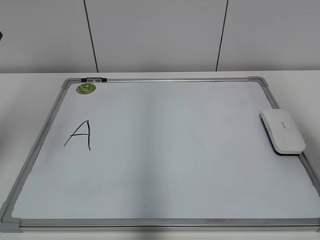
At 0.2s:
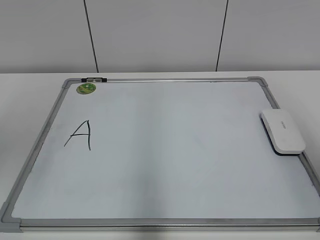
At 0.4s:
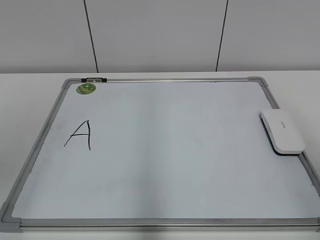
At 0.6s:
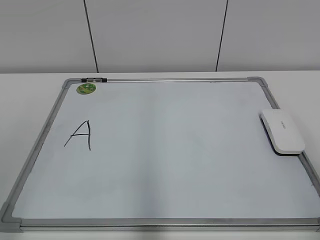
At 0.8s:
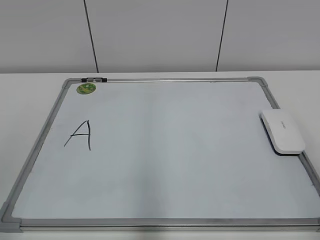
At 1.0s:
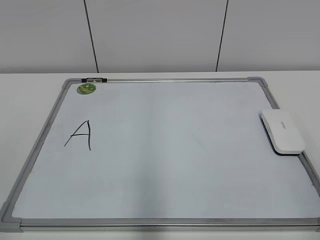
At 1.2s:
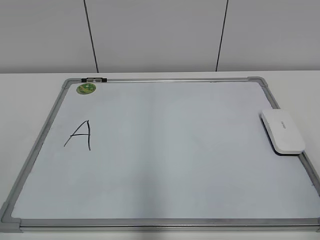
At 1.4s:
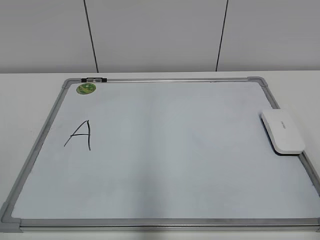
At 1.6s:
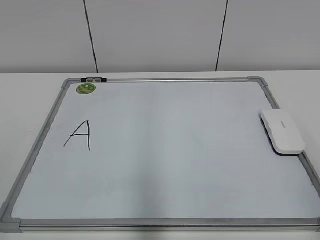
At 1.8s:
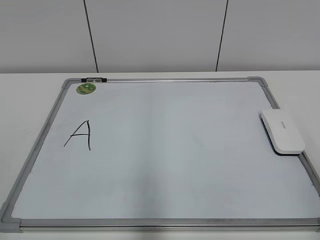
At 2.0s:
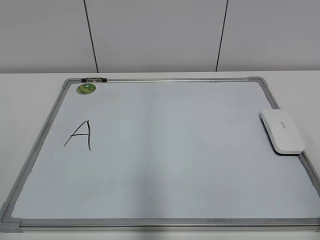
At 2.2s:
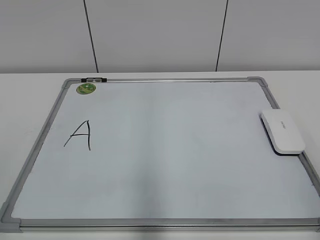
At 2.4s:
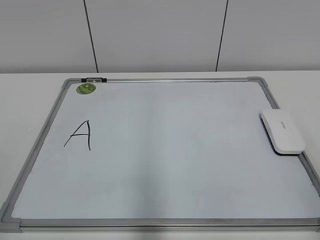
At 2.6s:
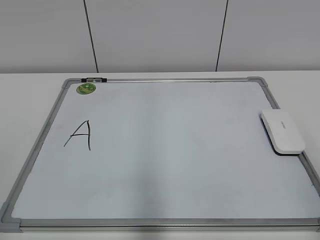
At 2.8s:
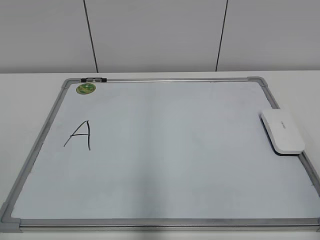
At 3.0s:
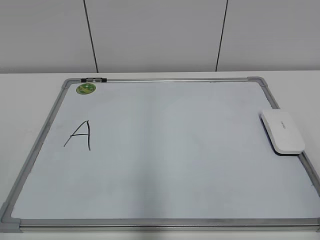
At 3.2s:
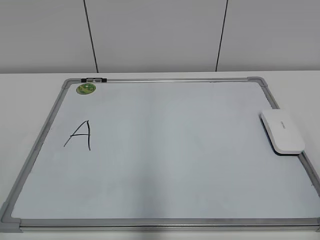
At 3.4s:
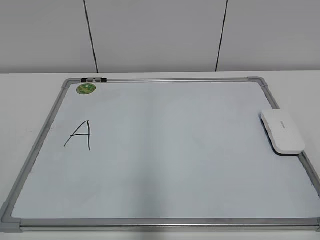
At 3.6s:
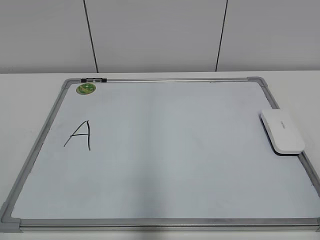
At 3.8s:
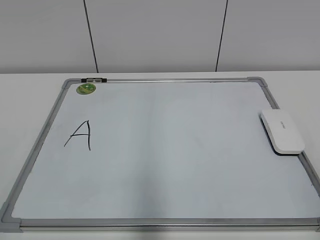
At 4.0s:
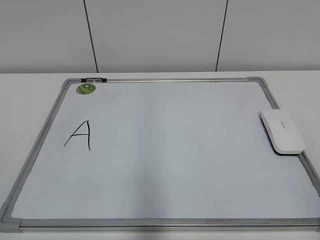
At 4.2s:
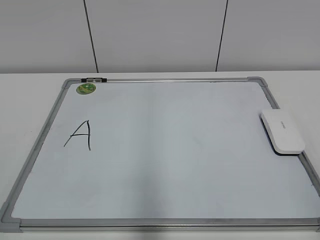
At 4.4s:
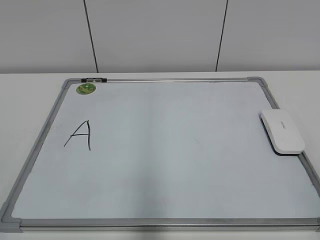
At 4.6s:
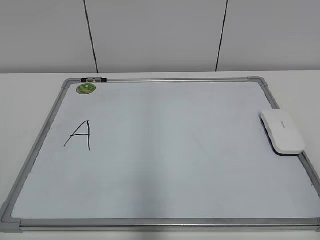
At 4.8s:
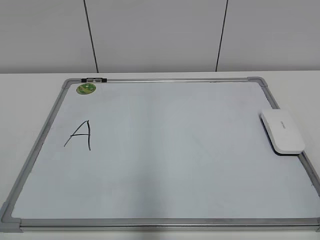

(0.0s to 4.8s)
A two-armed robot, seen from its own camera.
Task of the whole recording: pick up the eraser on the blackboard and erase the letter "a".
0.0s - 1.6s: Both grippers move backward and downward, roughly 25 cm.

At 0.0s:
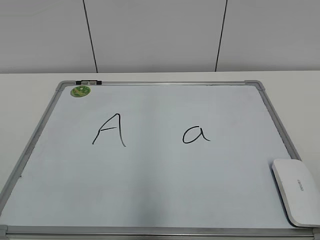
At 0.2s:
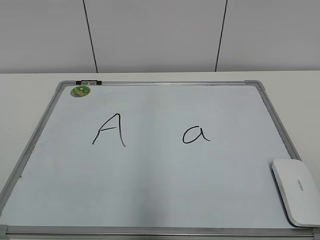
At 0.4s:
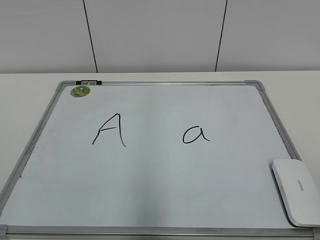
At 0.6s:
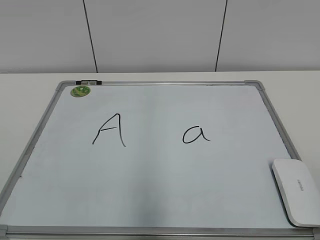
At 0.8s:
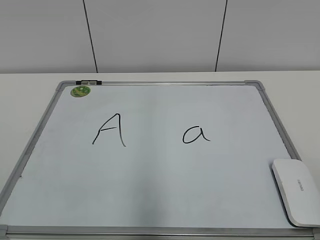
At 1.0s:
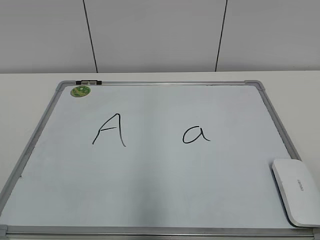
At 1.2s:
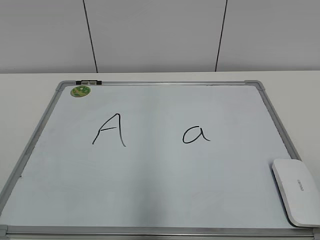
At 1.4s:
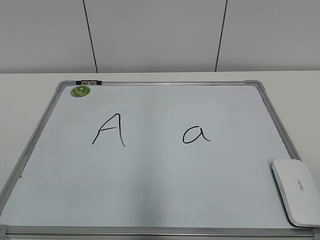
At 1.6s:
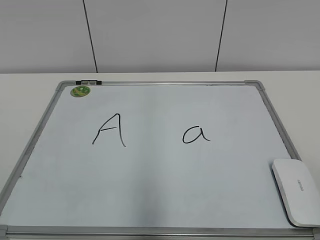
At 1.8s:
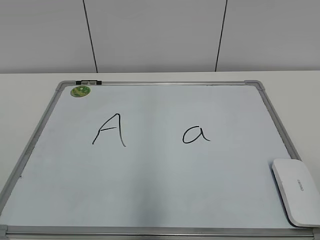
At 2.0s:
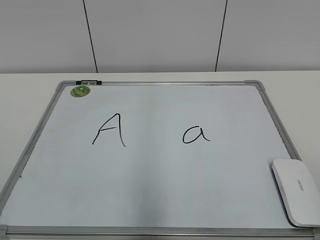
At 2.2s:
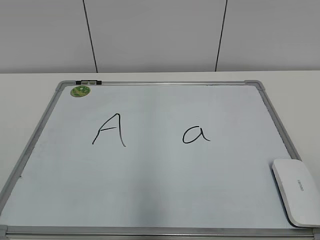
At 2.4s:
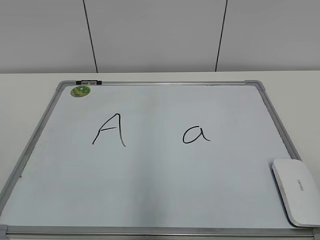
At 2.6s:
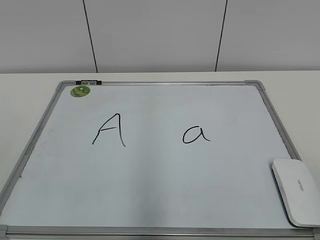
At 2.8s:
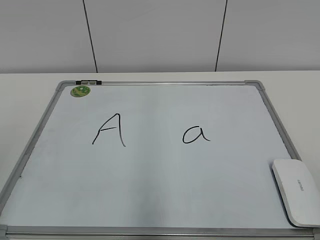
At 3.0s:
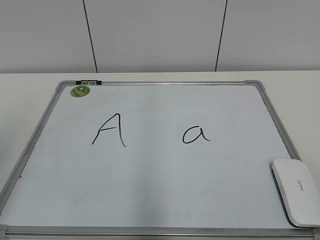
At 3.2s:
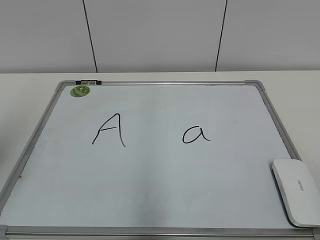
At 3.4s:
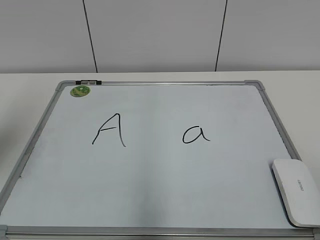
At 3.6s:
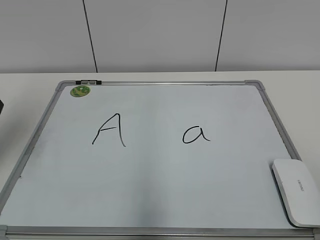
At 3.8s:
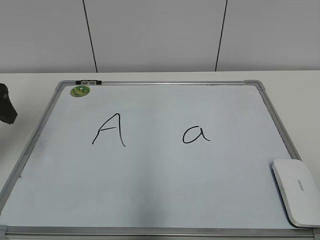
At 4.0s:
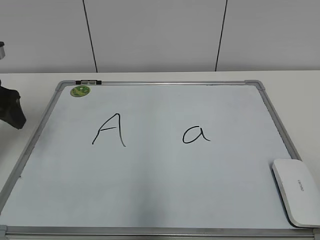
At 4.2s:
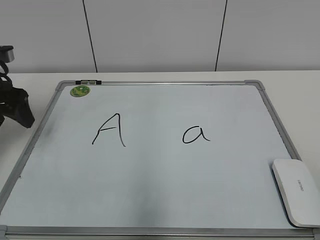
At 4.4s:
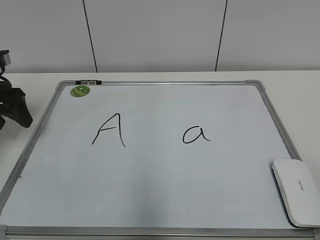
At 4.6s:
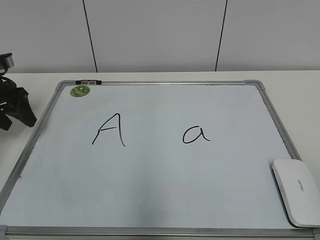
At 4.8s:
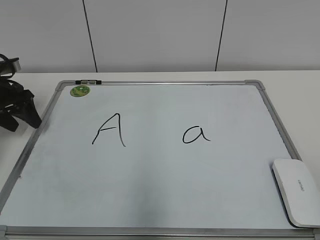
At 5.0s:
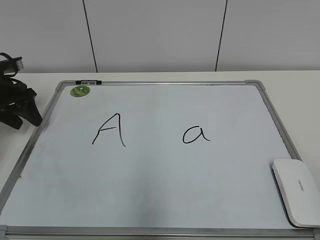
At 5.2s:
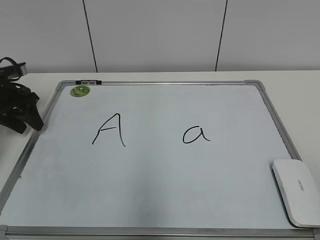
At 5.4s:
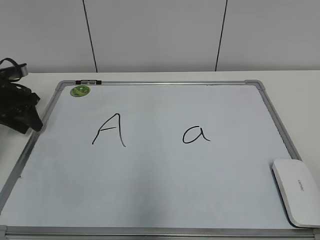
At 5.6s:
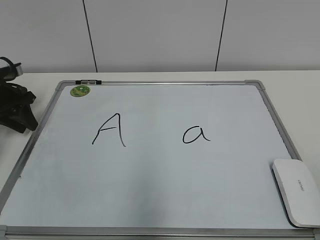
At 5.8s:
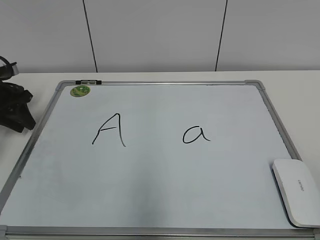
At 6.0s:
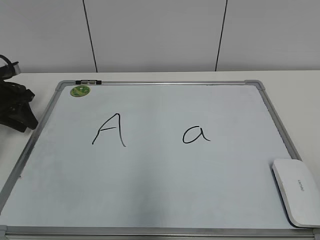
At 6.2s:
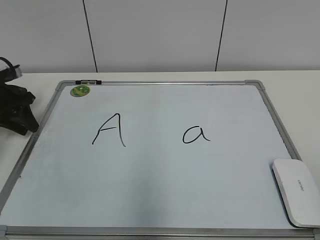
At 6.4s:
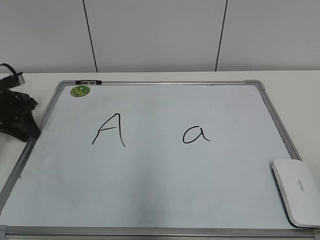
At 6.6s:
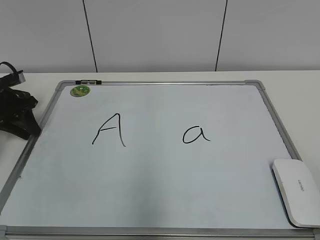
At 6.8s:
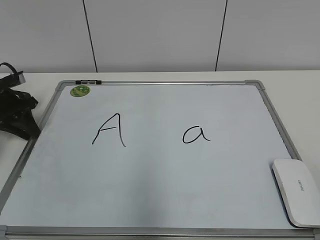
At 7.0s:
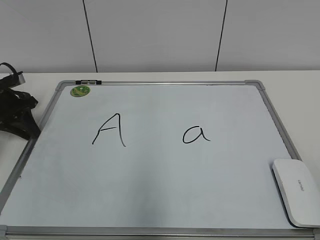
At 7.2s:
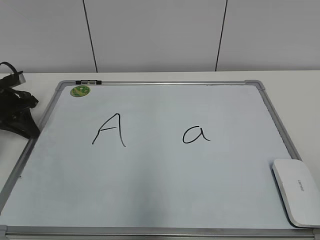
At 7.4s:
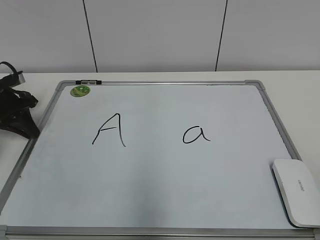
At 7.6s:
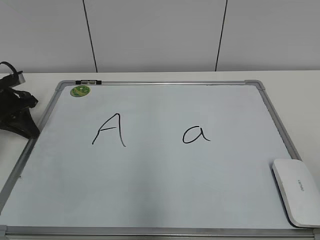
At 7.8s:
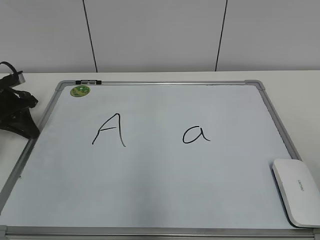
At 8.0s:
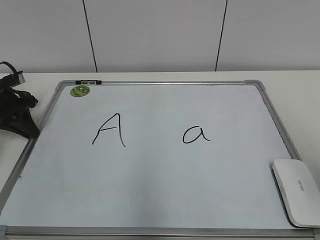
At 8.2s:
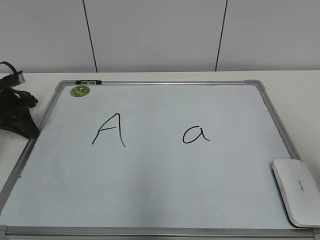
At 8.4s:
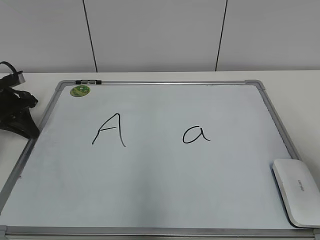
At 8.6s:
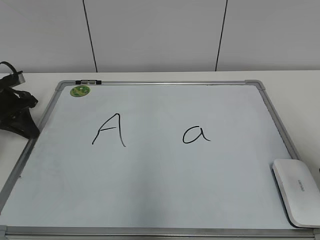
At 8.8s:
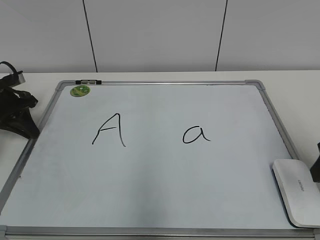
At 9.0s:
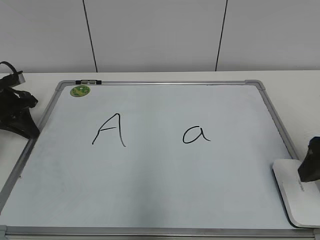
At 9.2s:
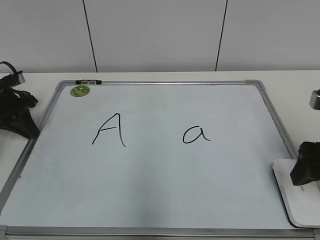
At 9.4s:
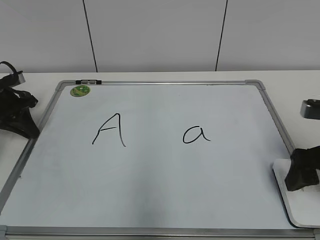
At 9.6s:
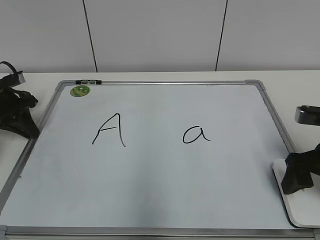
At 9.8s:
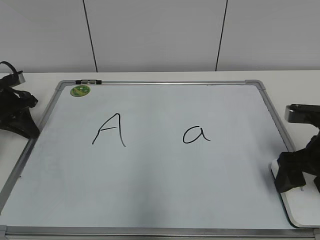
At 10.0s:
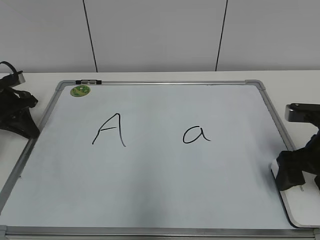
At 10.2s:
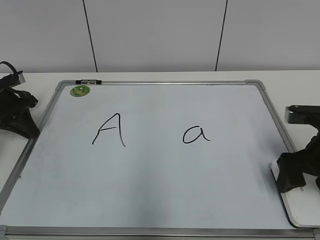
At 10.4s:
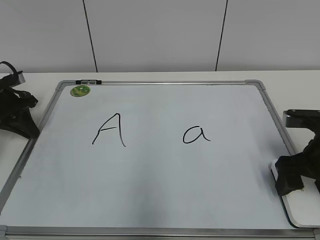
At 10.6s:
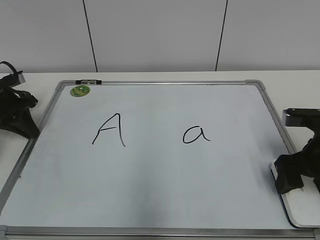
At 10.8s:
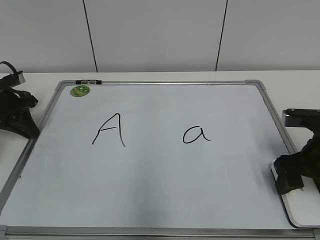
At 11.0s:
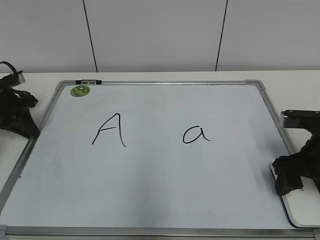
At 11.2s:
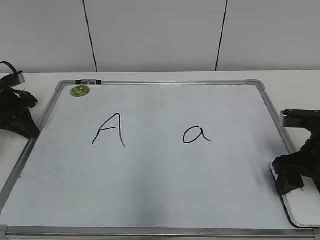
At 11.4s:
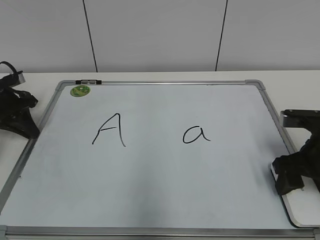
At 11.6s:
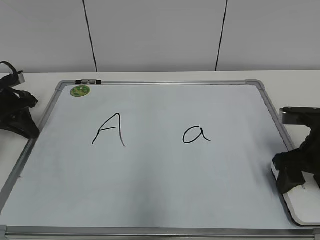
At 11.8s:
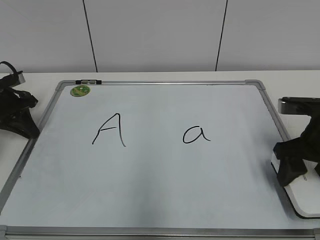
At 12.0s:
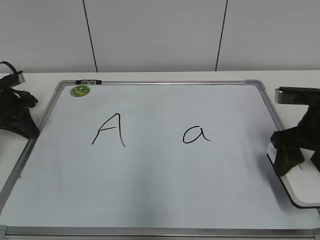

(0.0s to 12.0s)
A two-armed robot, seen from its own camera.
Task of the whole recording: pick up the eraser on the blackboard and erase the letter "a".
Step, 0.0s - 7.2s: Secure the drawing board with your left hand.
Step, 7.4s - 11.2s: Grab the eraser with your right hand.
3.0s - 4.4s: The left gripper moves forward and downward, about 25 cm.
4.4s - 6.0s: The left gripper shifts some 5 cm downward and forward, and closes.
6.0s - 7.6s: The left gripper closes up.
7.6s - 9.0s: The right gripper moves forward, about 20 cm, and closes and opens again.
9.0s - 10.4s: The right gripper goes about 5 cm downward.
10.4s - 12.0s: The right gripper closes.

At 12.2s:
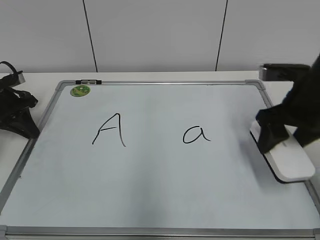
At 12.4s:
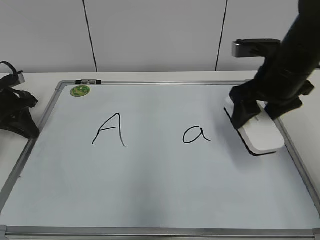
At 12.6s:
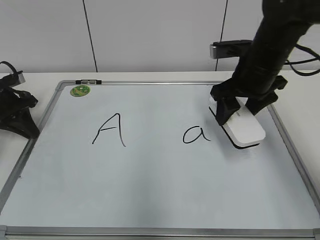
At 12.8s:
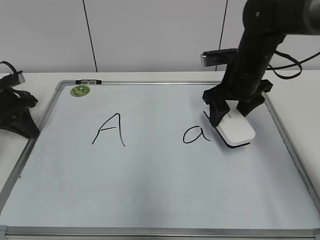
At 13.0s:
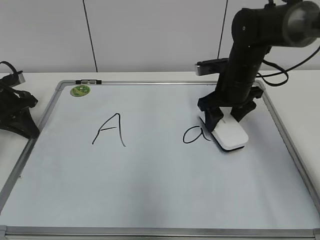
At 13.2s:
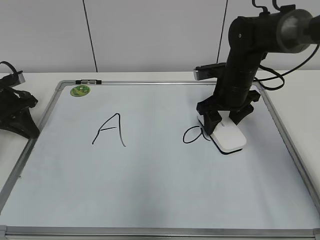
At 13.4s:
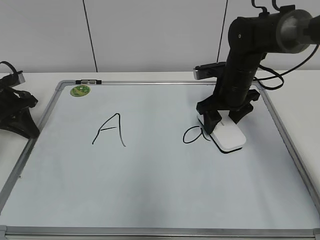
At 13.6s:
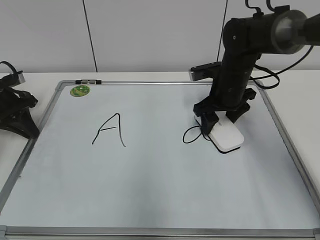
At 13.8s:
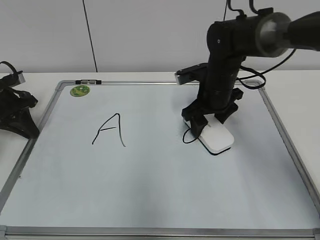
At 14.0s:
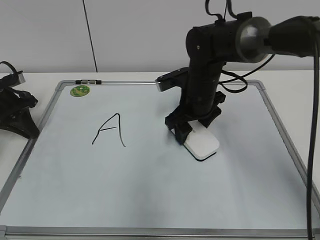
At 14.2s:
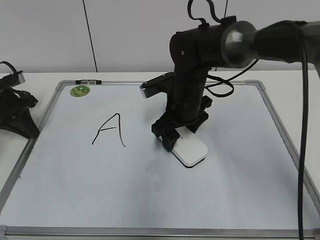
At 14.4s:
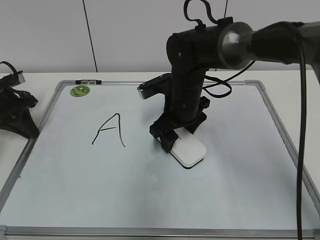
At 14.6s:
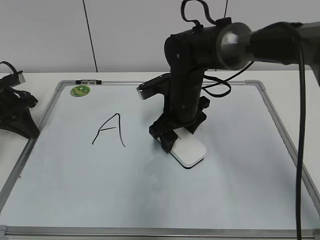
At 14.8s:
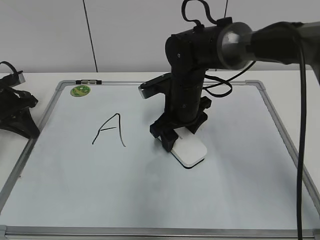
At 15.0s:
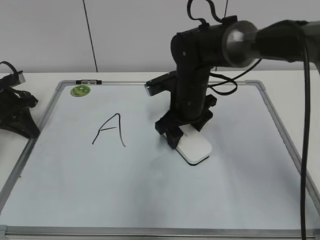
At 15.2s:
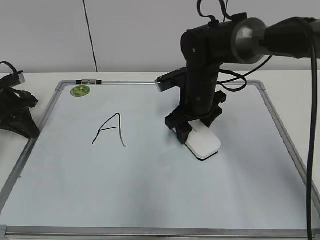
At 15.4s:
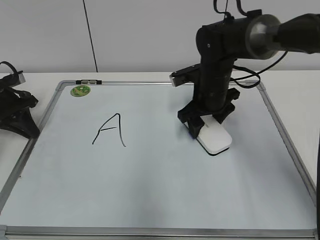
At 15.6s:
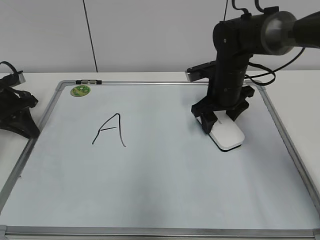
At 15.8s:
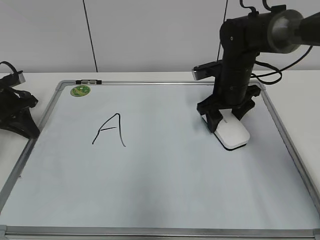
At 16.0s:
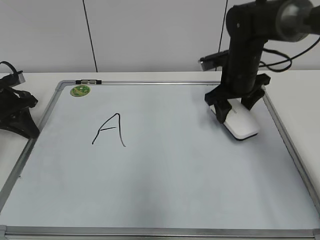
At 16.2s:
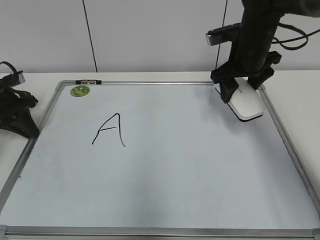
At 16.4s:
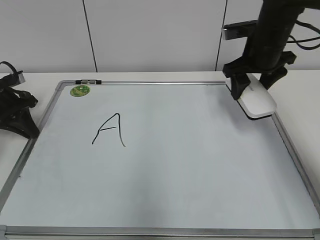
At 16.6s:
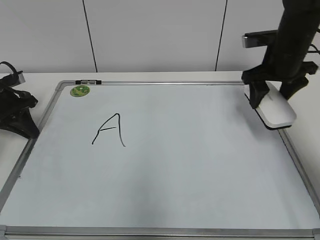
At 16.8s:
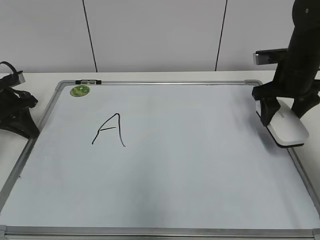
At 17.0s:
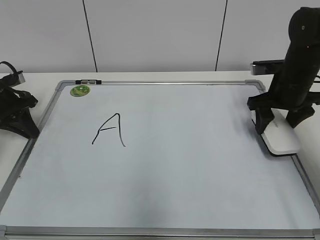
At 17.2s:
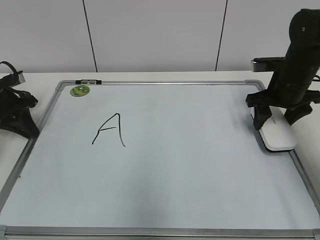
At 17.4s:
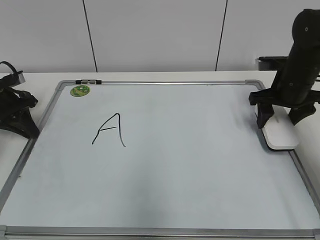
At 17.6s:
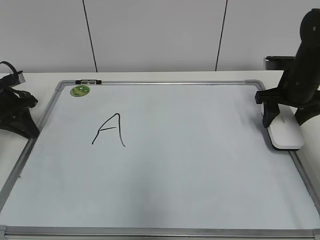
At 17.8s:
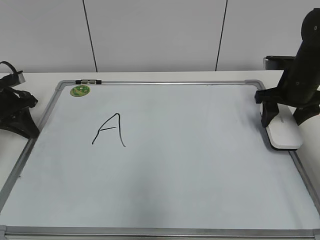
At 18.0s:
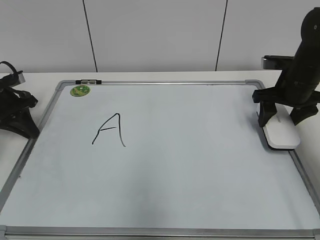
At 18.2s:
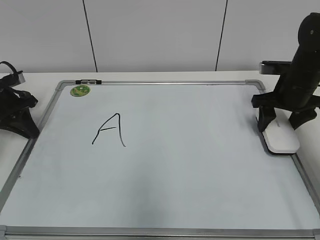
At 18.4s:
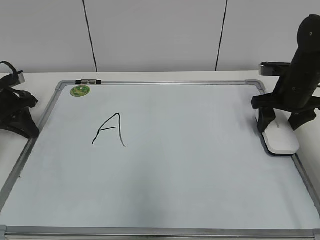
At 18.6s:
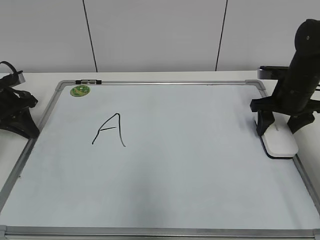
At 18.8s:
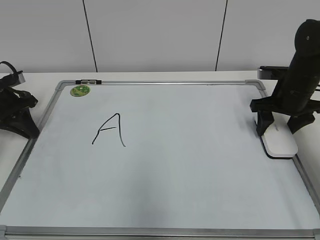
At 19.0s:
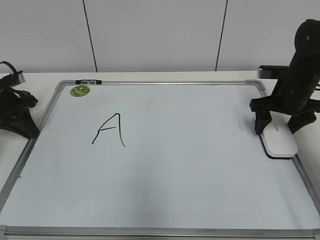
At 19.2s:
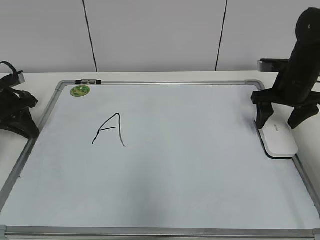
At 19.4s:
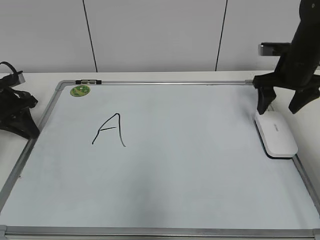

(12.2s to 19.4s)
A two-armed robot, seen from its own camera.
Task of the whole recording: pick up the eraser on the blackboard and erase the letter "a".
Step, 12.2s - 15.6s: Erase the letter a with your right hand.
Step, 16.0s - 19.0s: Put down the eraser with your right hand.
12.2s - 13.6s: The right gripper moves forward, to the left and downward, roughly 15 cm.
13.6s - 15.0s: The right gripper moves to the left, roughly 10 cm.
15.0s - 16.6s: The right gripper shifts about 20 cm to the right and upward.
16.6s - 18.0s: The right gripper moves some 5 cm.
18.0s - 19.4s: The right gripper opens up.
